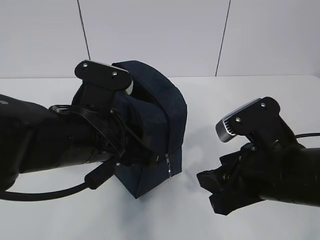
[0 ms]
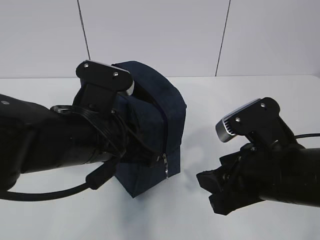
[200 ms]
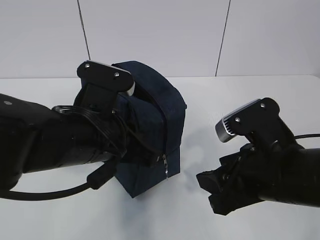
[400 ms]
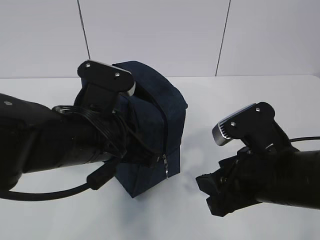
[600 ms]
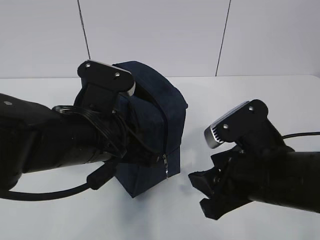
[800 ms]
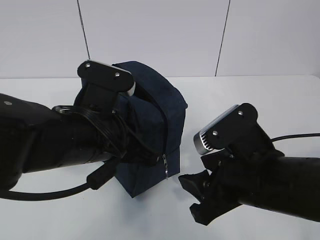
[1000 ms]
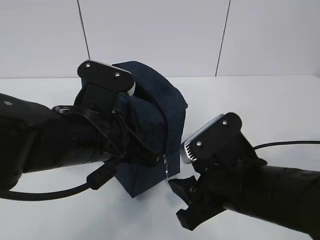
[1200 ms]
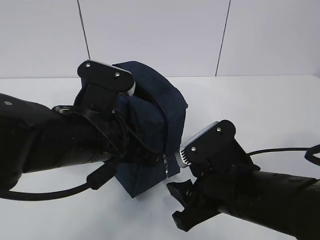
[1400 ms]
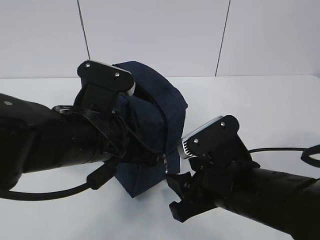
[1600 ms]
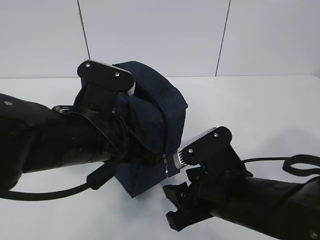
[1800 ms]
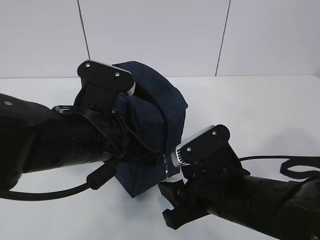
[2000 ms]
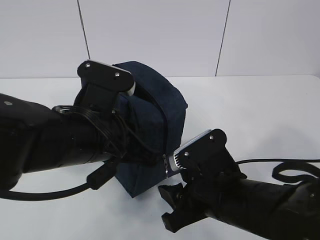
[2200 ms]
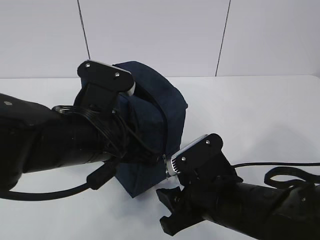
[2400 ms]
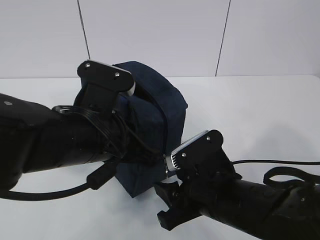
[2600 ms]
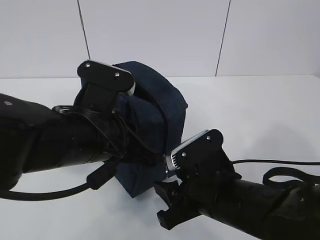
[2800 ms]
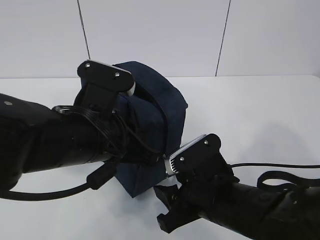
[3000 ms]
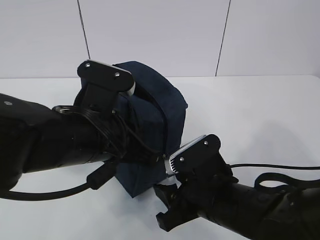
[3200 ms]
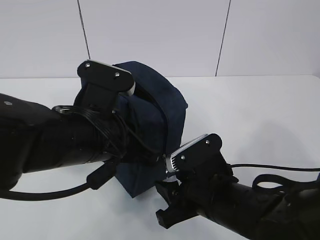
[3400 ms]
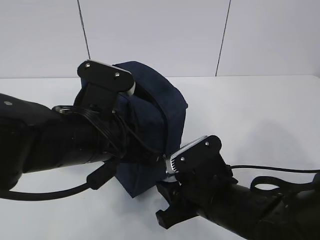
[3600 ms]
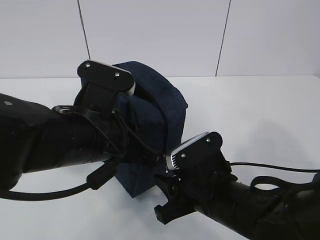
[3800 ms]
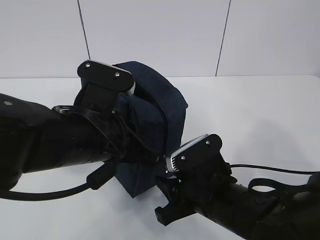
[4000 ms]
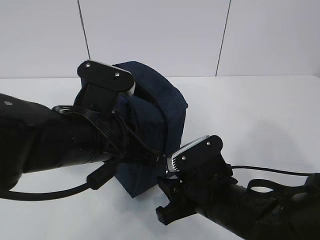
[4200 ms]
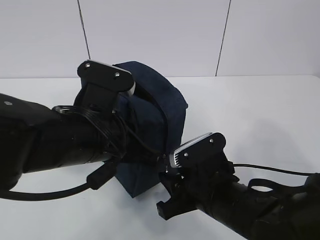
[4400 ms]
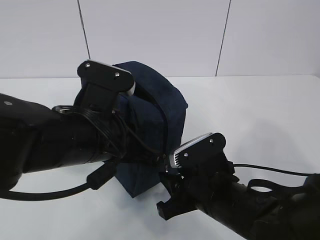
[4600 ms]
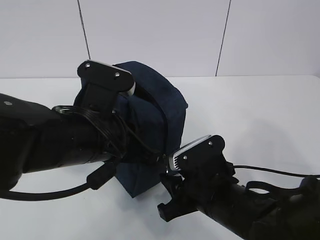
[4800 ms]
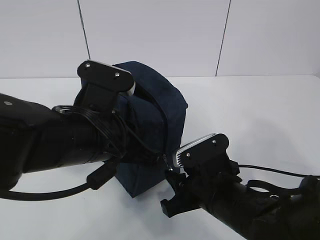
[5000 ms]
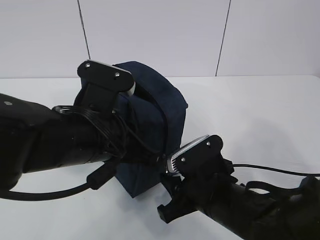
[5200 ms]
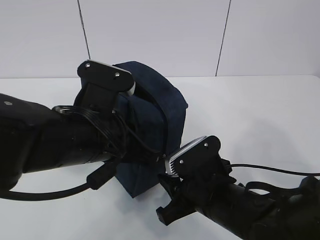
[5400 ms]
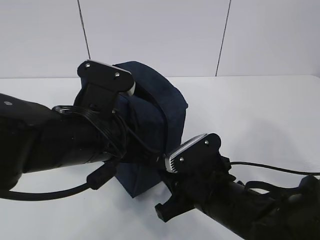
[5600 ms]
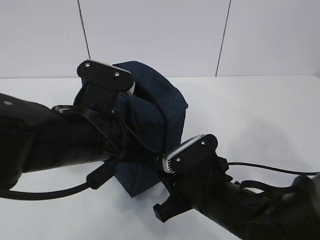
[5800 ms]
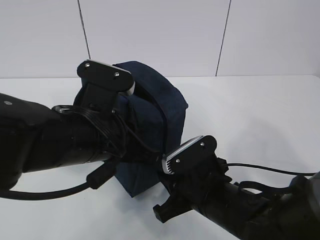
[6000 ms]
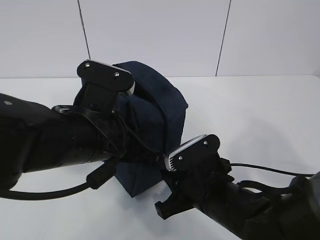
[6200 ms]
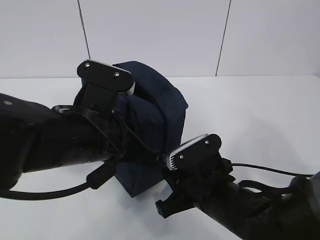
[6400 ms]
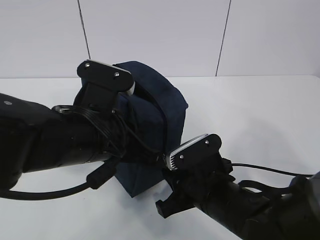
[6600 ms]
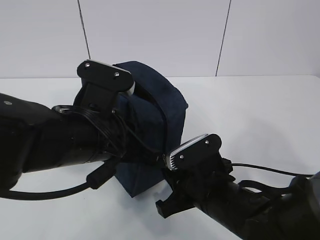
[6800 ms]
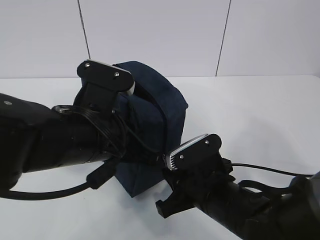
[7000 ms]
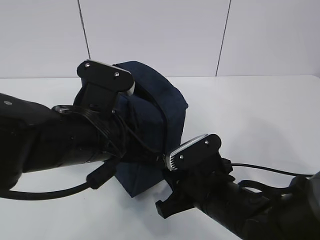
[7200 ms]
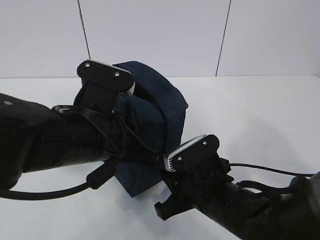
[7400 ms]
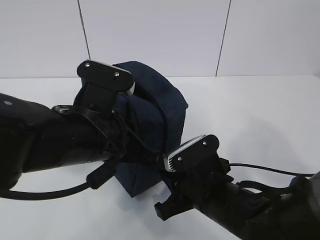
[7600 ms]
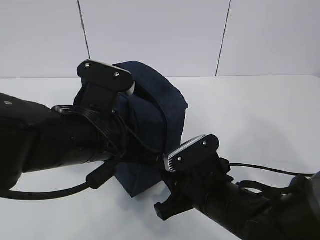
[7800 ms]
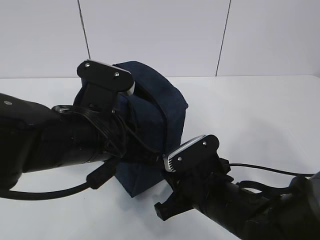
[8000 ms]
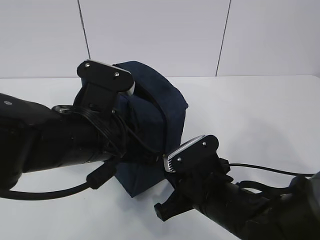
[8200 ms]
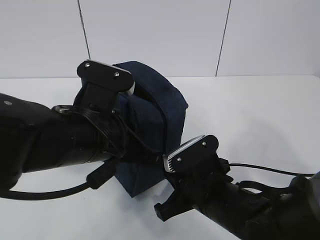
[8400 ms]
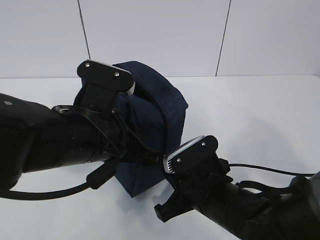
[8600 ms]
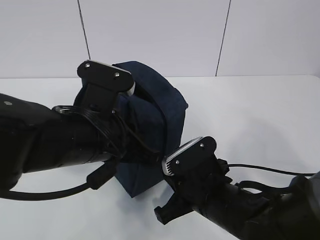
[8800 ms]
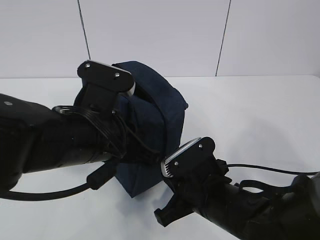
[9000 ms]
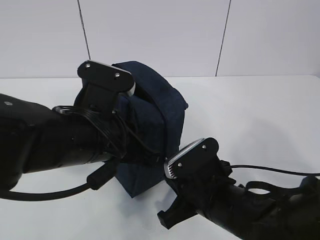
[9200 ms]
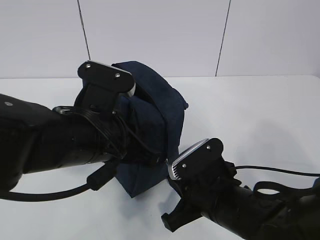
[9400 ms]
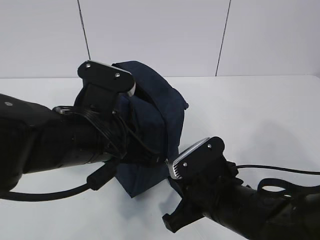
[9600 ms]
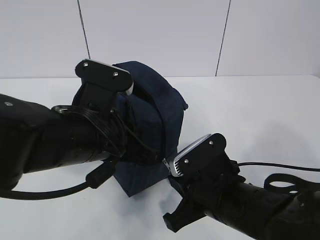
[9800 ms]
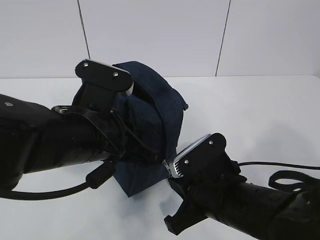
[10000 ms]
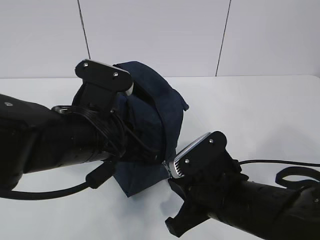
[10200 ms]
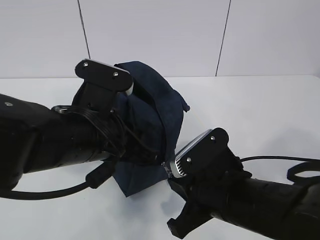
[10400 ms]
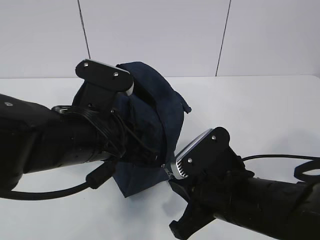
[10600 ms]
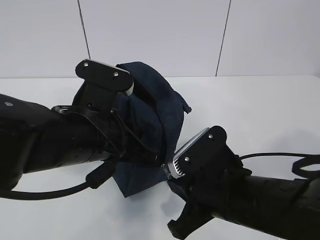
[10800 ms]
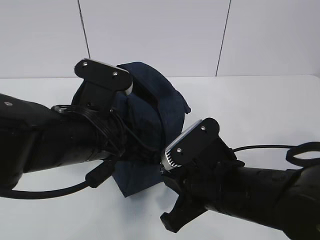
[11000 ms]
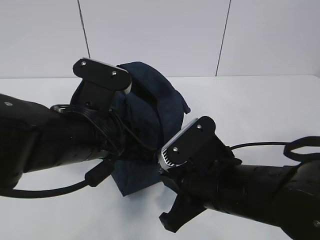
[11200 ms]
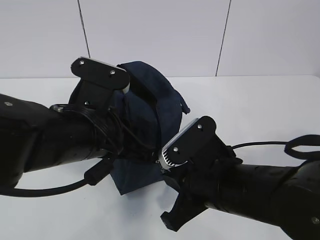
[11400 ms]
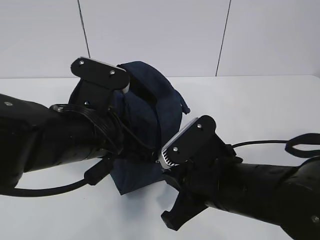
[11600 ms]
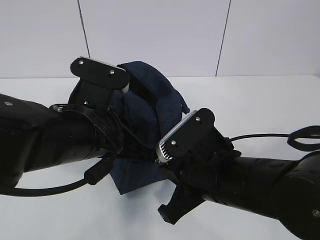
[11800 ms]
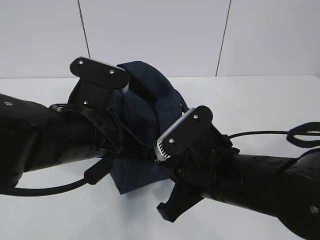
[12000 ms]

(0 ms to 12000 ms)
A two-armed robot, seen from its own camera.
0 ms - 1600 ms: The left gripper closes its fingers. Meanwhile the right gripper changes place by approximately 5 cm.
1600 ms - 4400 ms: The grippers make only small movements.
4400 ms - 6000 ms: The grippers make only small movements.
6000 ms - 7600 ms: The two grippers keep their place.
7600 ms - 9000 ms: The right gripper closes its fingers.
9000 ms - 10400 ms: The right gripper moves roughly 5 cm.
10400 ms - 12000 ms: The grippers stay close to where they were, moving slightly.

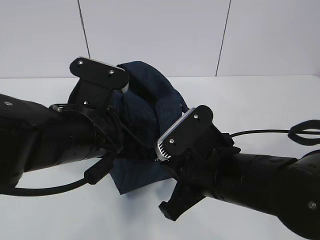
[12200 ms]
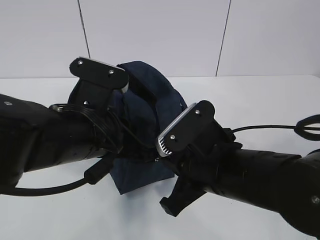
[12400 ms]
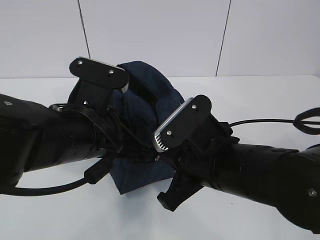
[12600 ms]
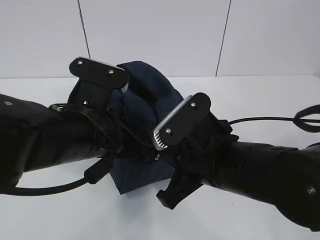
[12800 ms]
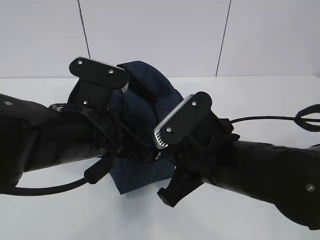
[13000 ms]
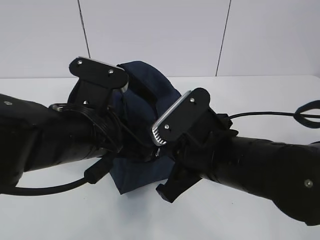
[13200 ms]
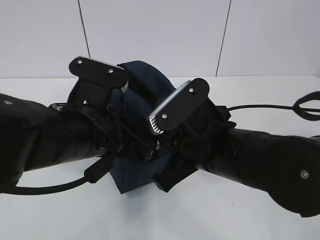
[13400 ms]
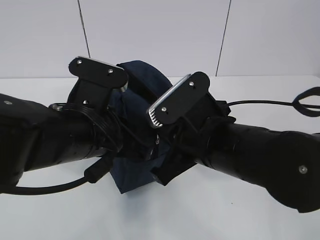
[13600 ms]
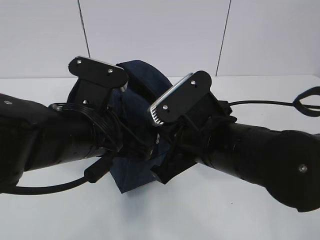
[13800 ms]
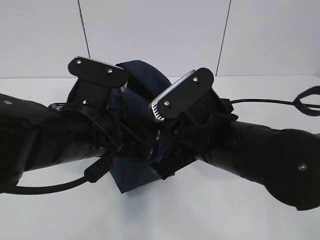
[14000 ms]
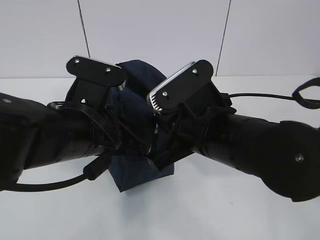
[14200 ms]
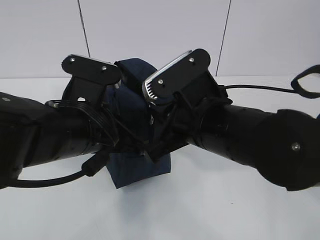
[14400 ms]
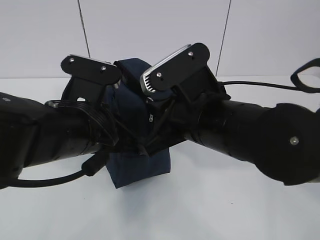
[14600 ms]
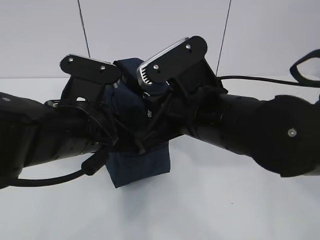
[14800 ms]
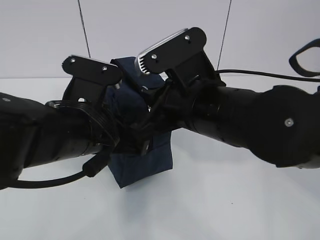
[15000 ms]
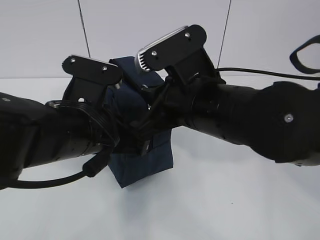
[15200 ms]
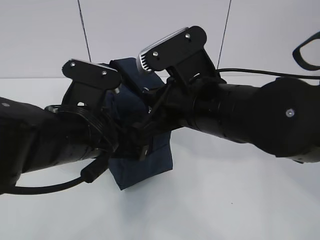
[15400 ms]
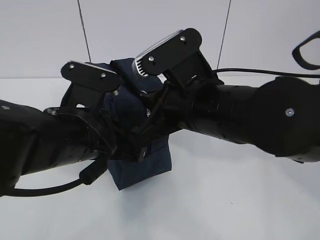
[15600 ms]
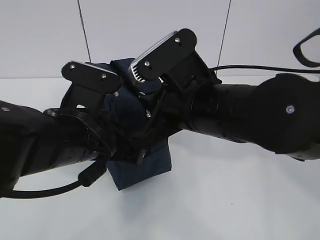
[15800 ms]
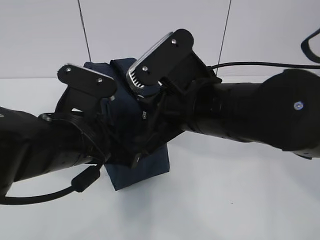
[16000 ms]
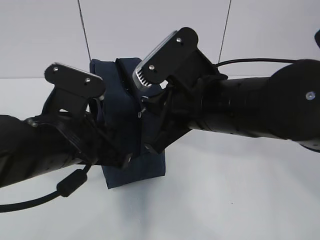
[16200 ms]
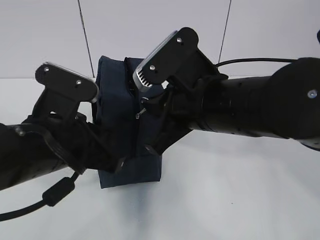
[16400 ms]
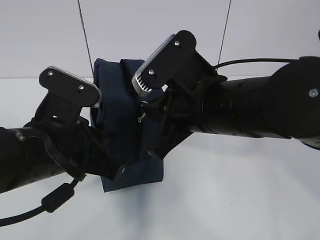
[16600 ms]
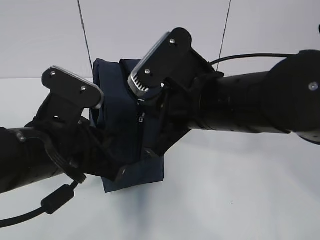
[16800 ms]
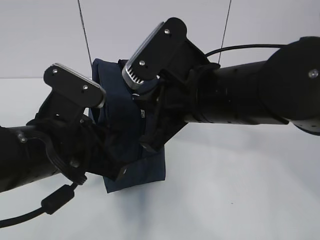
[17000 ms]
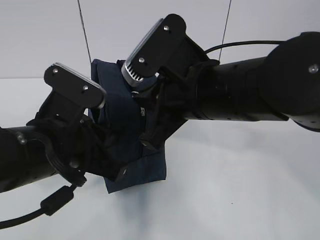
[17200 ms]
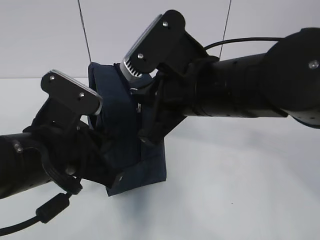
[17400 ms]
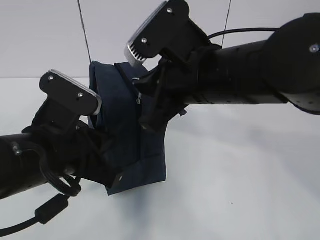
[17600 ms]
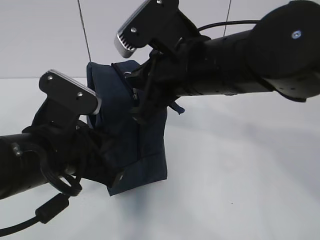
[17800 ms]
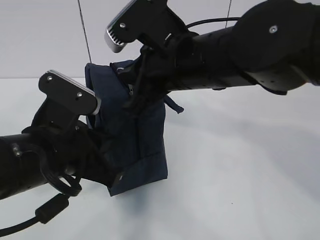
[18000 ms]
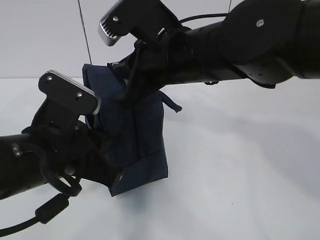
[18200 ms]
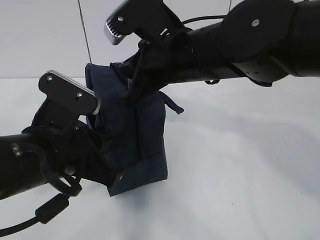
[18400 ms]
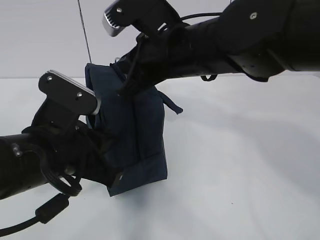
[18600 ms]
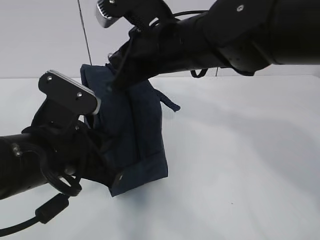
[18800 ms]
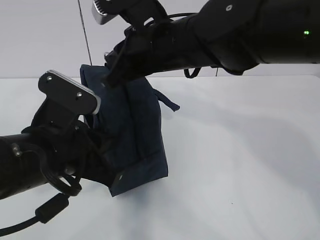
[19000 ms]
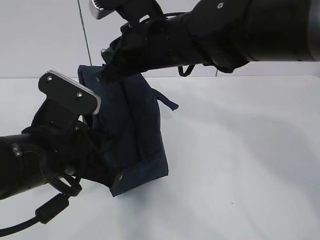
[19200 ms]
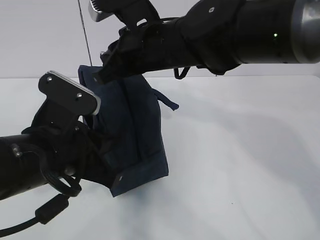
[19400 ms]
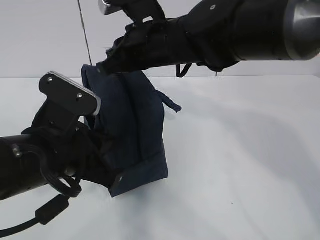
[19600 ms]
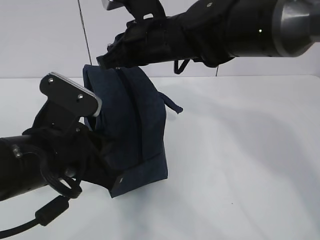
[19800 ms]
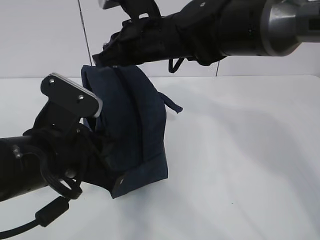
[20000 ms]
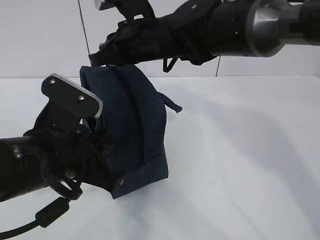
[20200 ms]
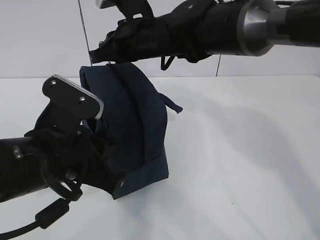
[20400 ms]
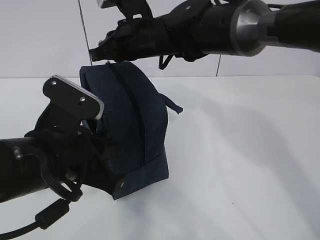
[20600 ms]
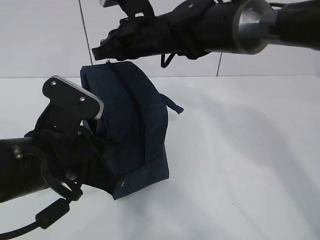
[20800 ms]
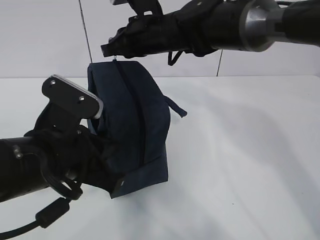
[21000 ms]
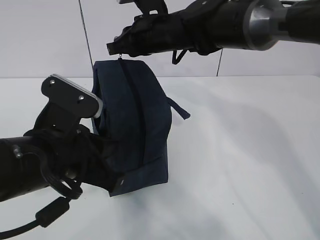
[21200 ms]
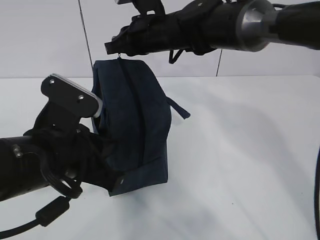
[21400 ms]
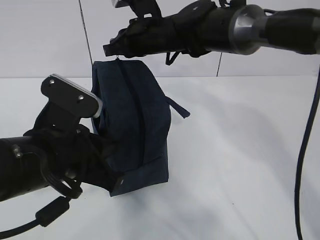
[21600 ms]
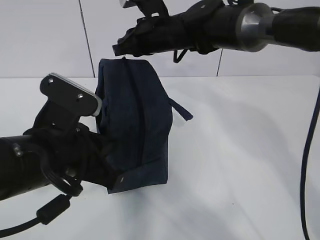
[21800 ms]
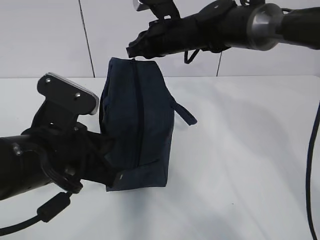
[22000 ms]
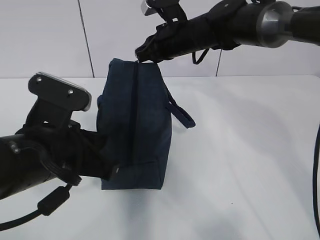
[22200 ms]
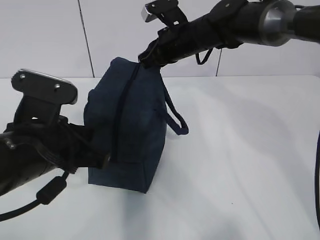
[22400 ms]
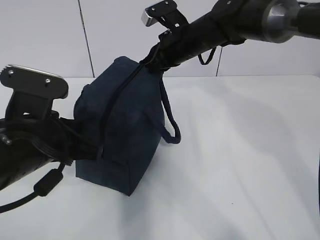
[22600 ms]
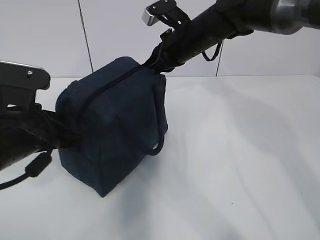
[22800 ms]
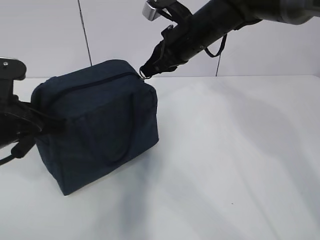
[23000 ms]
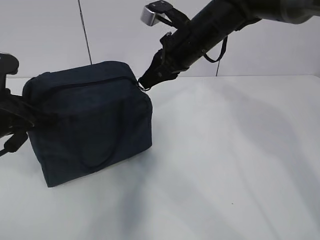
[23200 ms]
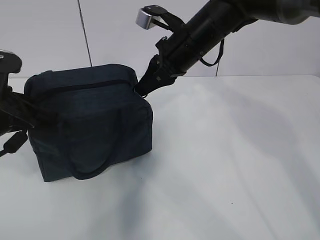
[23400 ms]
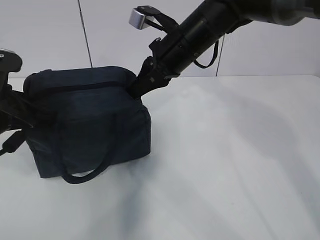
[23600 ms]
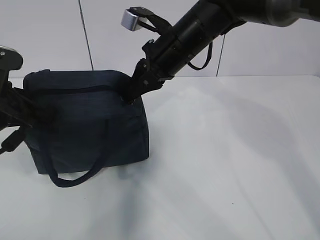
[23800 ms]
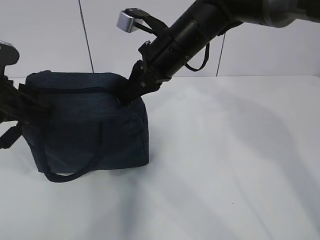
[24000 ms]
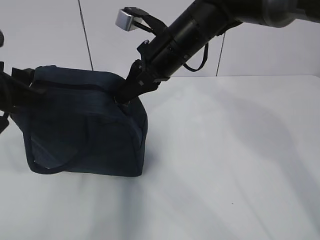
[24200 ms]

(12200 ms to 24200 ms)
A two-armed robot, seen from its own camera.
12200 ms - 13800 ms: There are only small adjustments of the grippers.
13800 ms - 15200 ms: The right gripper changes place by some 5 cm.
15200 ms - 16600 ms: The grippers make only small movements.
16600 ms - 18200 ms: The right gripper moves roughly 5 cm.
18200 ms - 19800 ms: The right gripper is displaced forward by about 10 cm.
19800 ms - 21200 ms: The right gripper travels forward by roughly 5 cm.
21200 ms - 22600 ms: The right gripper is displaced to the right by roughly 5 cm.
22600 ms - 24200 ms: The left gripper heads to the left, covering roughly 5 cm, and opens its fingers, while the right gripper travels backward by approximately 5 cm.
